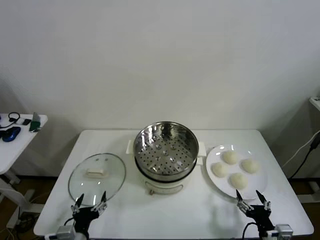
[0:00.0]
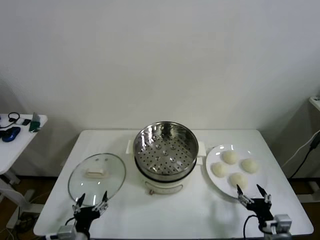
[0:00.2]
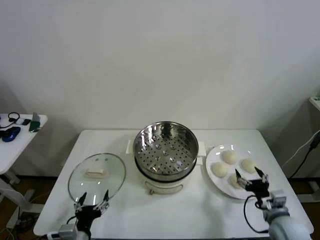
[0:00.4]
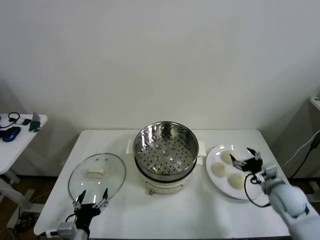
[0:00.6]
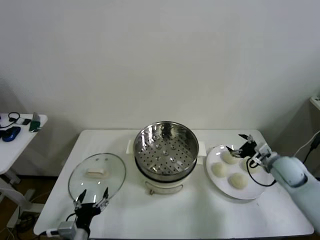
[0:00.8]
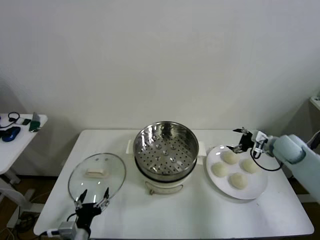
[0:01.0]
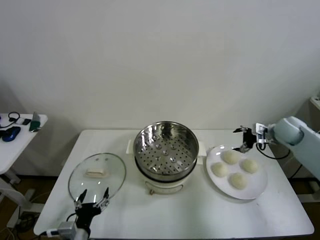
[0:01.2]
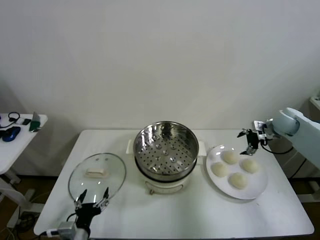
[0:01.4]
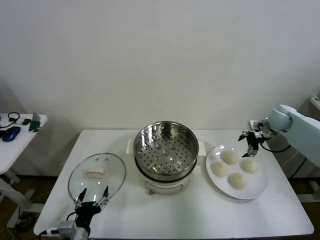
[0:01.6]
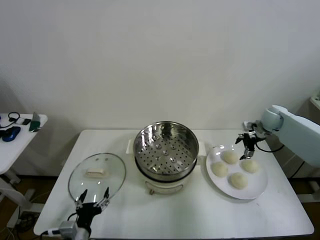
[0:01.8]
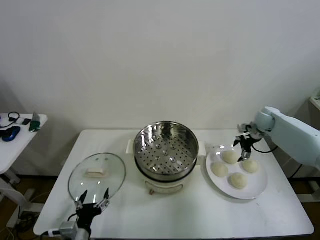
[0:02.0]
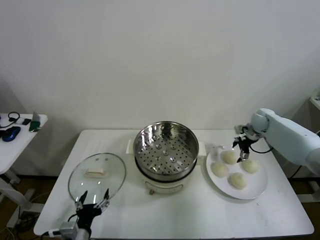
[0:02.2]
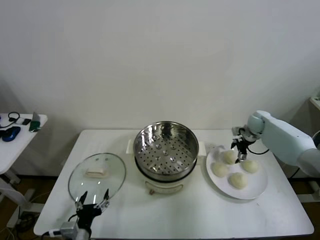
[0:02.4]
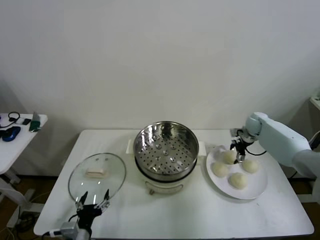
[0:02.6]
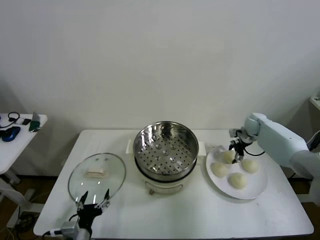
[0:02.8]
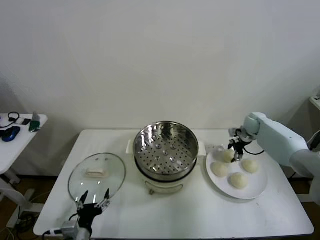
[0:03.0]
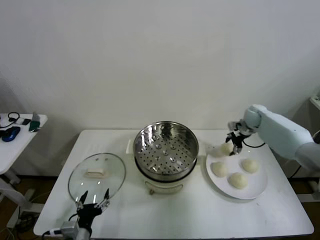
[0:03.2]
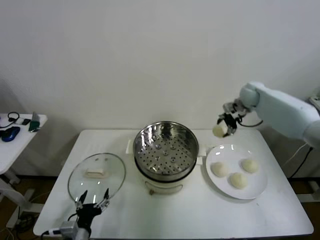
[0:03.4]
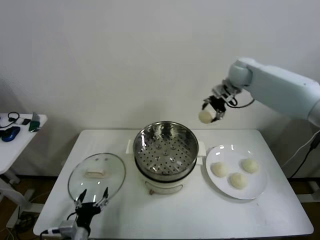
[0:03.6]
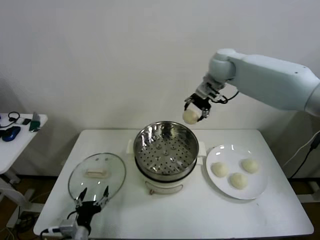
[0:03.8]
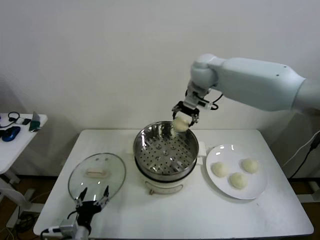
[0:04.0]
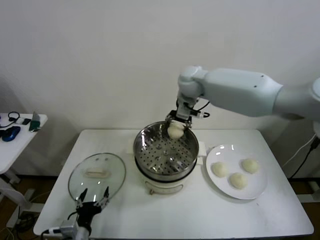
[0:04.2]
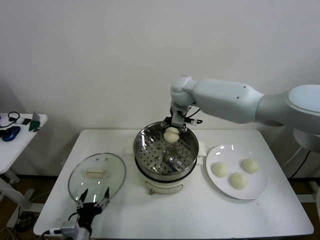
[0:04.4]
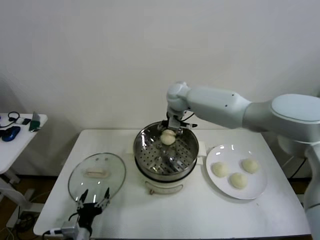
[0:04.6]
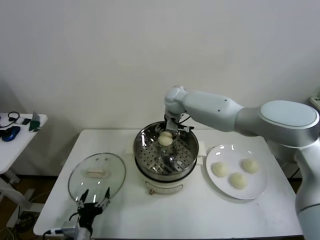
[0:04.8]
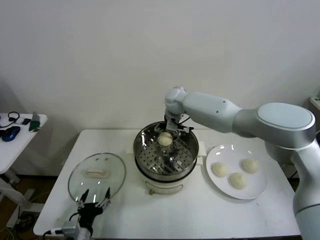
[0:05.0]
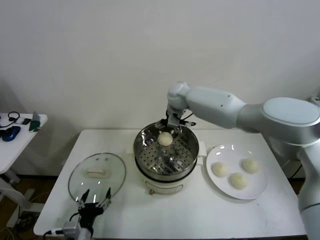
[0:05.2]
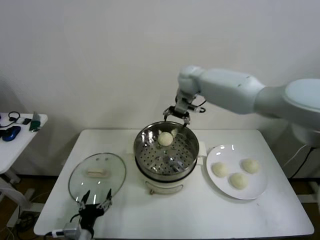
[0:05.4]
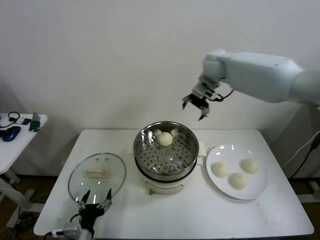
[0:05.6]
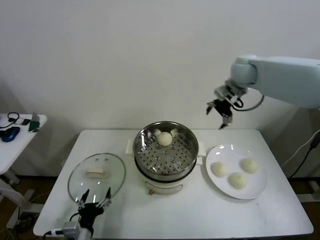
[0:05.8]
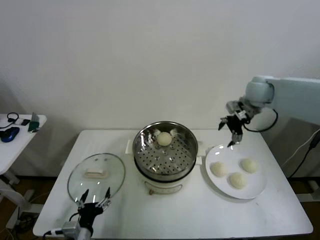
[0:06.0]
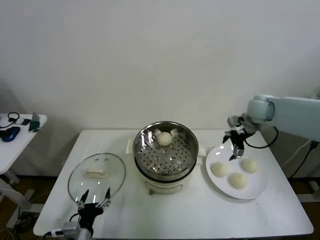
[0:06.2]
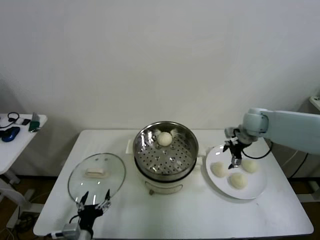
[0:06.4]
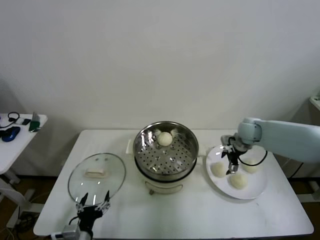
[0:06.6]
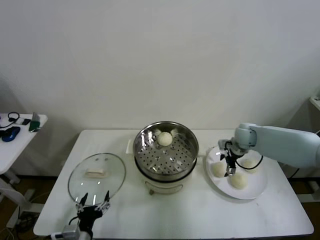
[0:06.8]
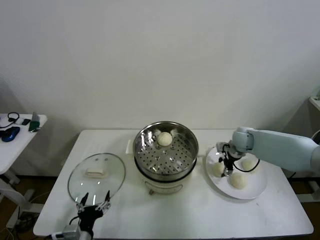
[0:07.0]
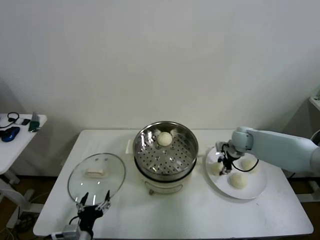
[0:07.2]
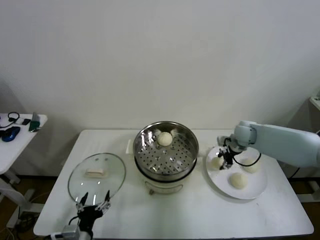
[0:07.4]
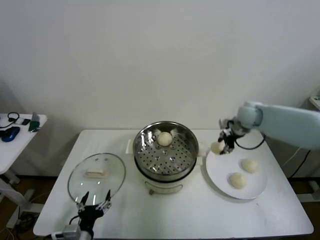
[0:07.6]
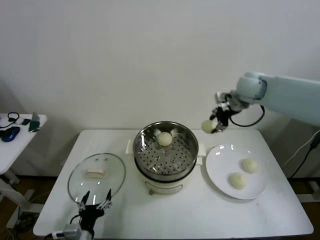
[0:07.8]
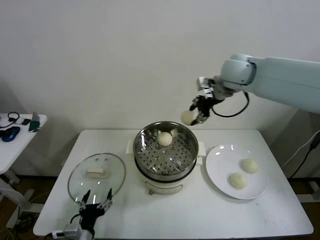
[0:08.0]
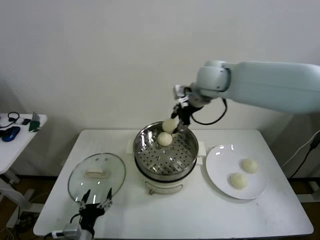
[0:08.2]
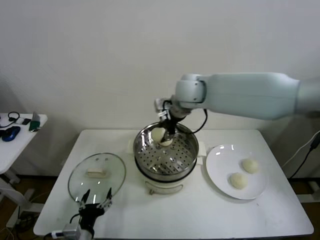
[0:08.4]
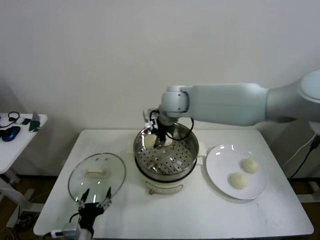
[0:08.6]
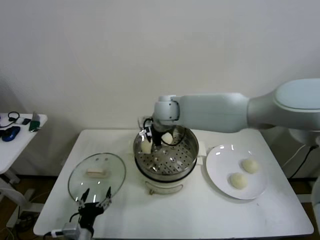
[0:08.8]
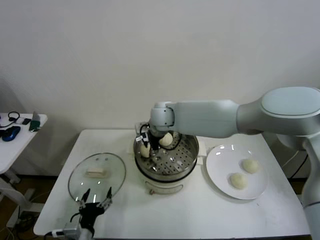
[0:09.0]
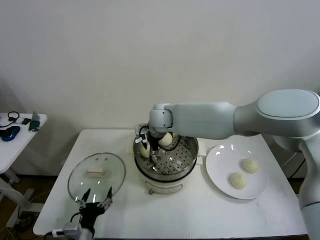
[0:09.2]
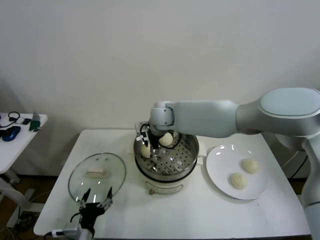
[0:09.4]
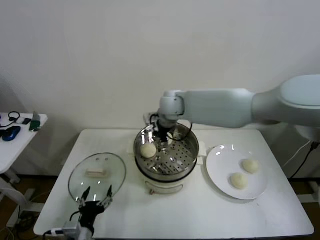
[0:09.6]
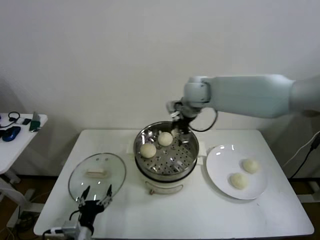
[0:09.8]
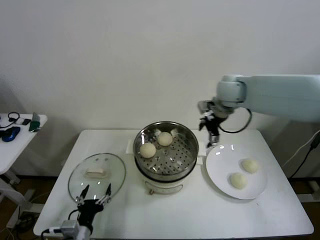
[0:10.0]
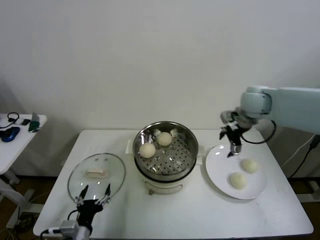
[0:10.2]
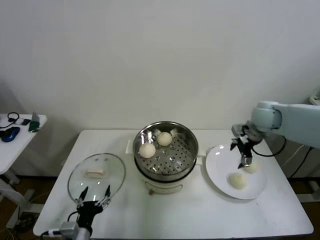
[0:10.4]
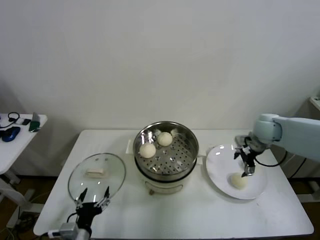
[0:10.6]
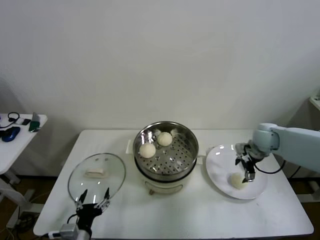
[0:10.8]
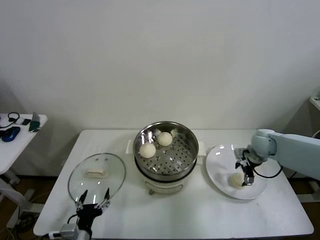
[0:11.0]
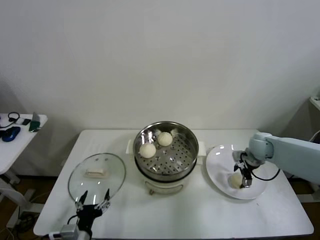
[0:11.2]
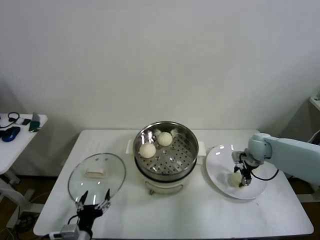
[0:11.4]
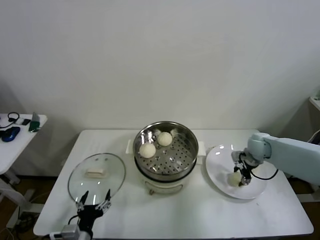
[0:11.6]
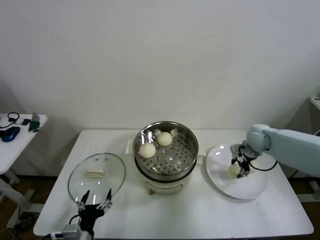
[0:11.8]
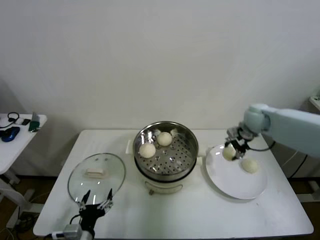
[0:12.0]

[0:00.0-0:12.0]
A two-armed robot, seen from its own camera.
Step, 0.0 to 2.6 s: Grasp the baozi in the plate with right gripper.
Step, 3.0 to 5.0 s: Place the baozi on the steamer with right gripper.
Step, 5.4 to 7.0 s: Grasp the baozi in the plate with right gripper.
Step, 7.2 to 9.2 s: Place the baozi on the steamer with right gripper.
Step, 9.6 to 11.4 s: Grasp the baozi in the plate with right gripper.
1.6 to 3.0 s: The right gripper goes roughly 5 cm downward, and closes its fingers.
3.0 to 4.4 s: The right gripper moves to the left and upward, some 35 cm.
4.4 to 6.0 s: The right gripper travels to the right by some 25 cm, and opens.
6.0 to 7.6 s: The right gripper moves approximately 20 cm downward and comes back, and closes its fingers.
7.6 to 9.0 s: The right gripper moves to the left, about 30 cm.
9.0 to 10.4 s: The right gripper is displaced to the right by about 35 cm, and opens up.
10.4 to 12.0 s: The right gripper goes downward and returns, approximately 15 cm each way, and closes its fingers.

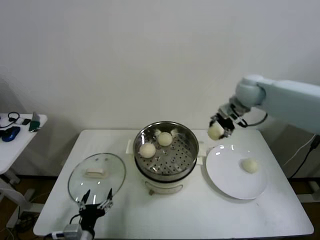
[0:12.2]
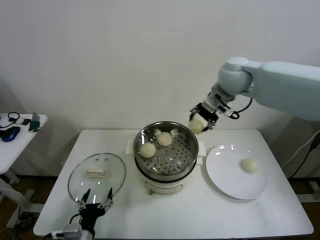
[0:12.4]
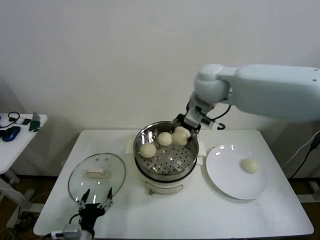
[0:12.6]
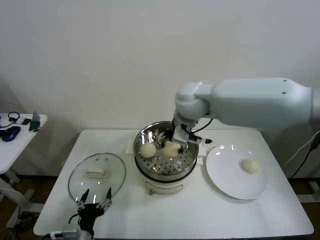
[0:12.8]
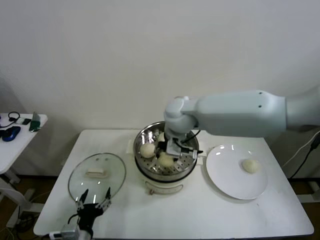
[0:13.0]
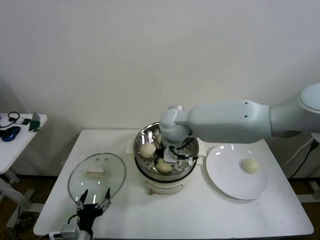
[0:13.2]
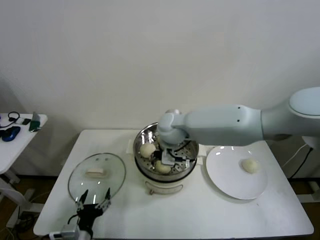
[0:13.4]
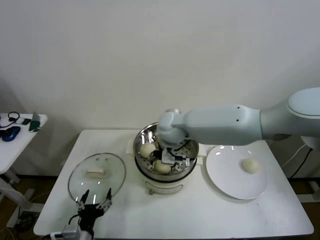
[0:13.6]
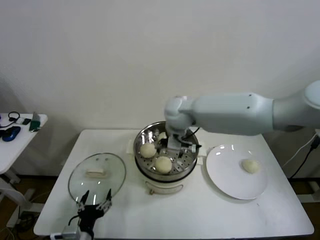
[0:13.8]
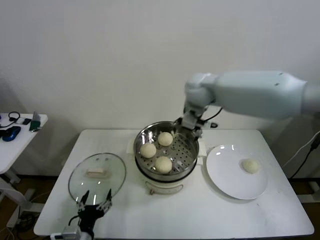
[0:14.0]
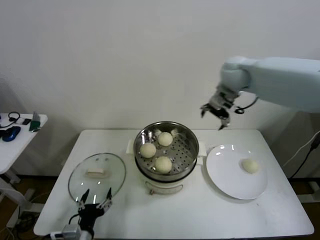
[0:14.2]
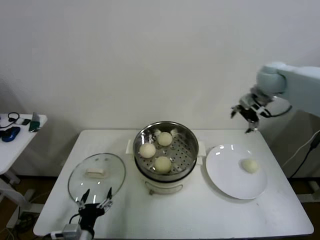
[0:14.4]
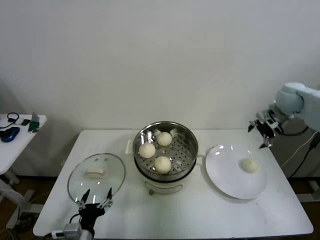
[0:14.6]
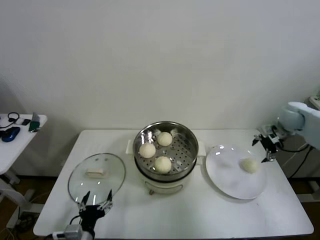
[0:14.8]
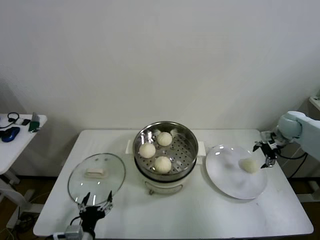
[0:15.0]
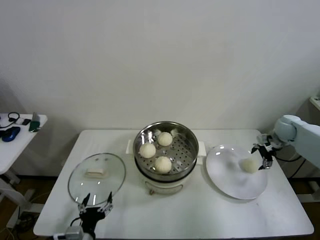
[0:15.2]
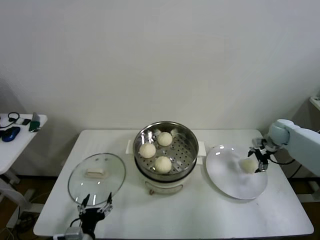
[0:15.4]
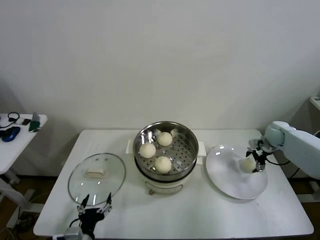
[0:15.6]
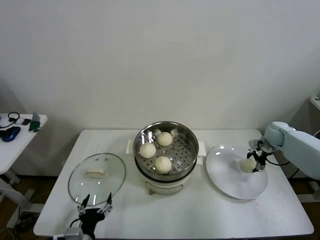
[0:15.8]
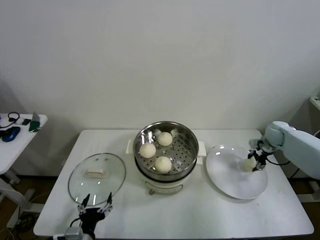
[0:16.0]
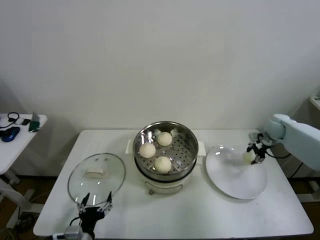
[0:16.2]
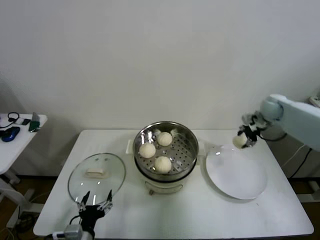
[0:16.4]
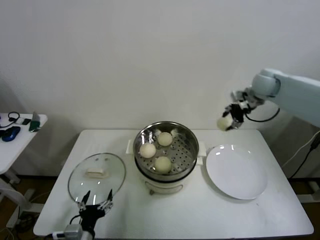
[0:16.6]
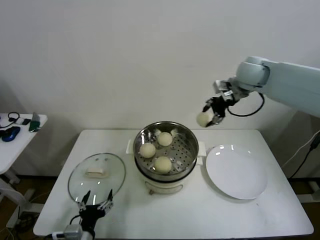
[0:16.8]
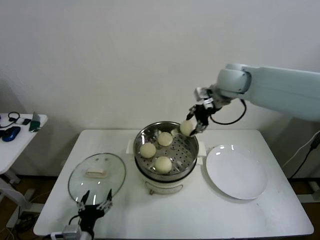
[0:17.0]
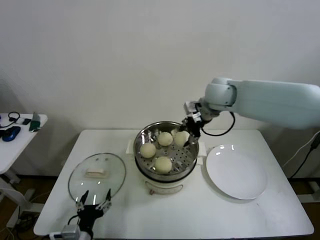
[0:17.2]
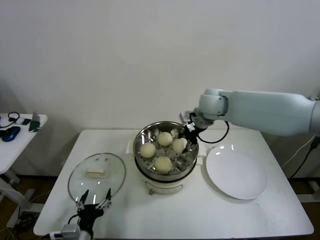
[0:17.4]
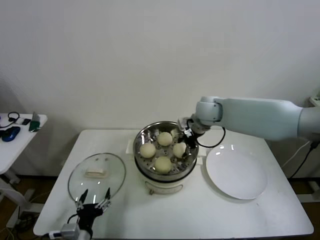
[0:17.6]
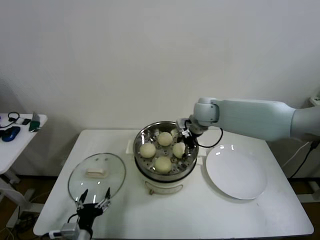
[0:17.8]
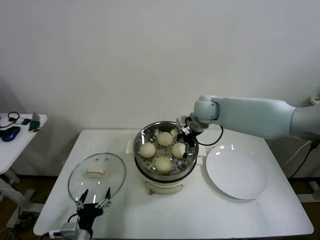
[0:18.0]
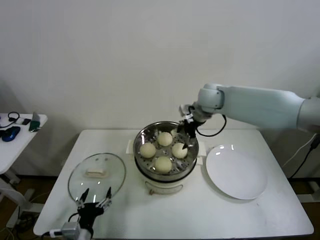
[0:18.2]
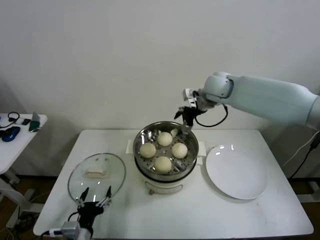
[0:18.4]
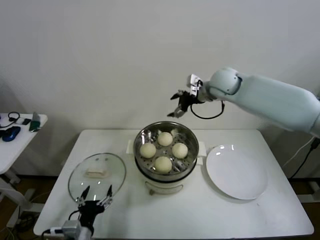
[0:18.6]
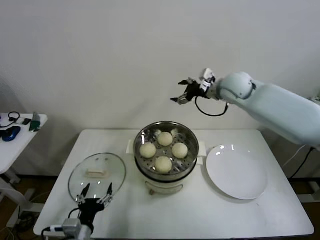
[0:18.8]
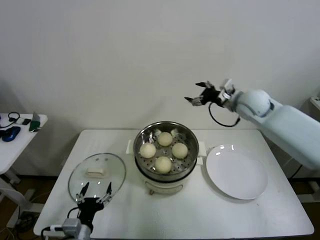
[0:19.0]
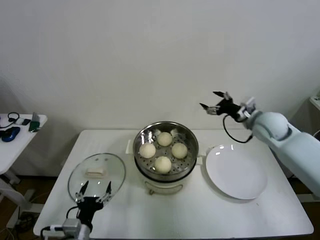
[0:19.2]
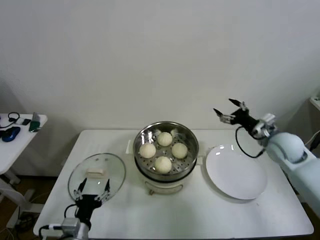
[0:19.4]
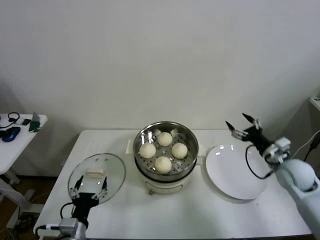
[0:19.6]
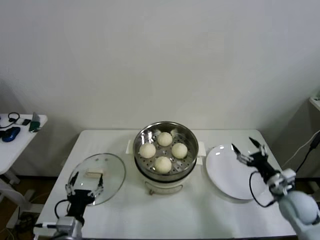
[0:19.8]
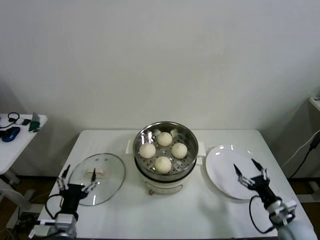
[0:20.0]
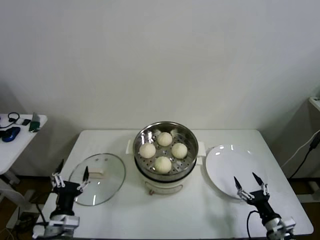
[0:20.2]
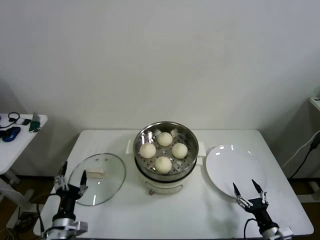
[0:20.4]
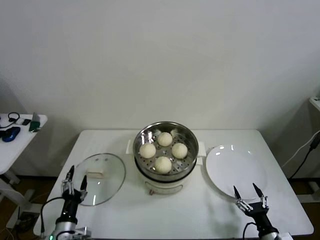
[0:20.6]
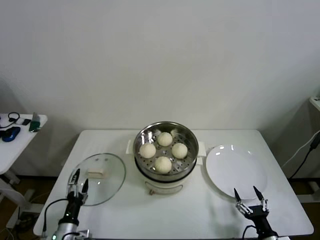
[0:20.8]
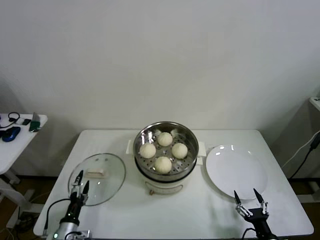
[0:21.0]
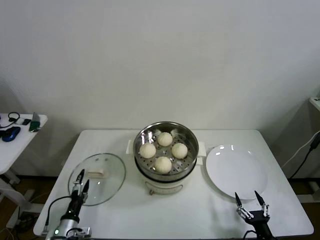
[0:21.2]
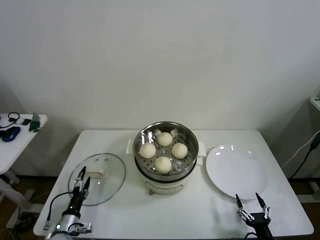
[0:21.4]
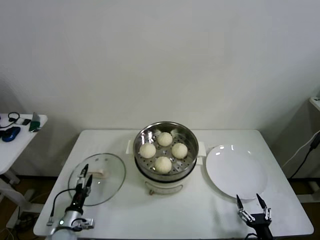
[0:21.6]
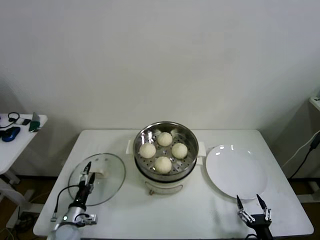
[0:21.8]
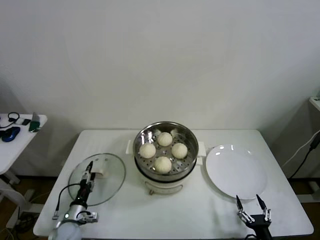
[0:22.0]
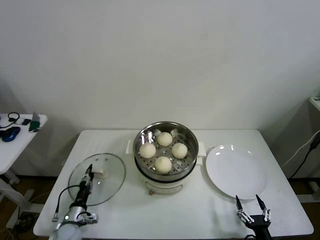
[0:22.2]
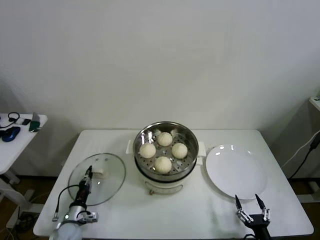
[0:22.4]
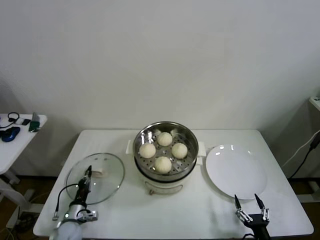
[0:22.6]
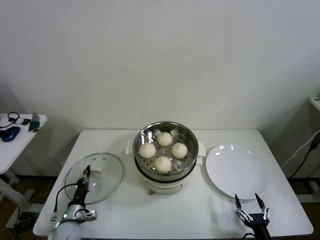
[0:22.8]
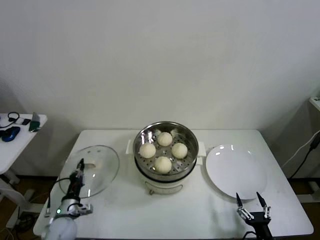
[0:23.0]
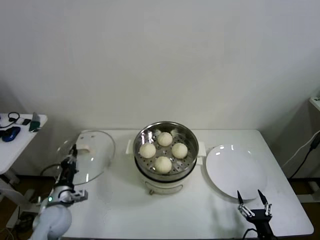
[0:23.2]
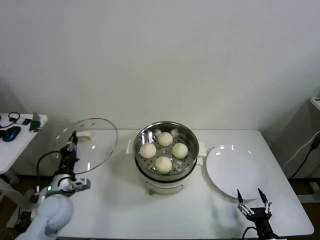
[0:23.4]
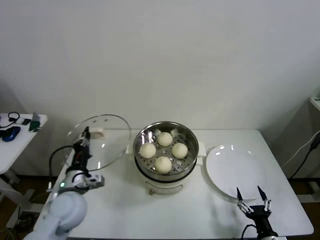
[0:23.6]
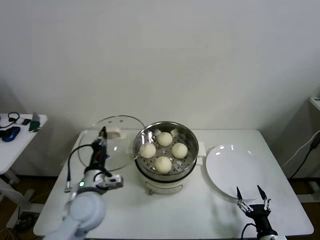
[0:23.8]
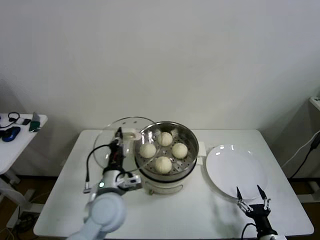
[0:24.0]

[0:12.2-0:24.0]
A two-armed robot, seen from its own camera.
Step, 12.2 to 13.6 s: Place the baozi on the steamer with right gripper.
Step, 13.8 to 15.8 s: Grasp the baozi in the plate with right gripper.
Step, 16.0 to 17.8 s: Place the baozi on the steamer with right gripper.
Step, 18.0 to 22.4 s: Grasp the pot lid with left gripper.
12.2 to 13.6 s: The right gripper moves to the left and downward, about 25 cm, and opens its fingers.
13.6 to 15.2 s: The right gripper heads to the right, covering some 40 cm.
15.2 to 16.6 s: The right gripper heads upward and to the left, covering approximately 20 cm, and closes.
16.6 to 18.2 s: The right gripper is displaced to the left by some 20 cm, and opens up.
18.2 to 19.6 s: The right gripper moves to the right, backward and downward, approximately 35 cm.
19.6 to 21.0 s: The left gripper travels downward and to the left by approximately 15 cm, while the right gripper goes about 30 cm backward and downward.
21.0 to 22.6 s: The left gripper goes roughly 5 cm forward, and closes up.
22.6 to 24.0 s: The left gripper moves upward and to the right, about 30 cm.
